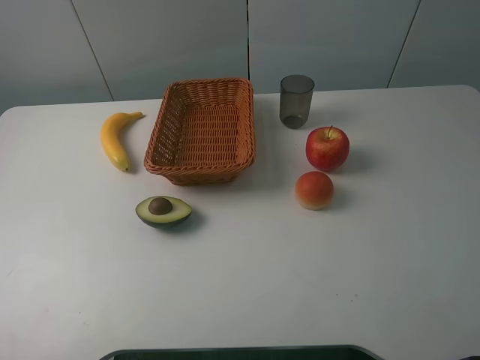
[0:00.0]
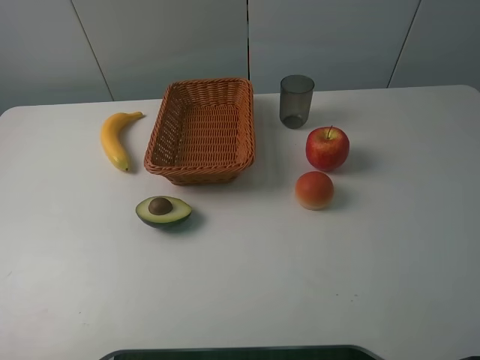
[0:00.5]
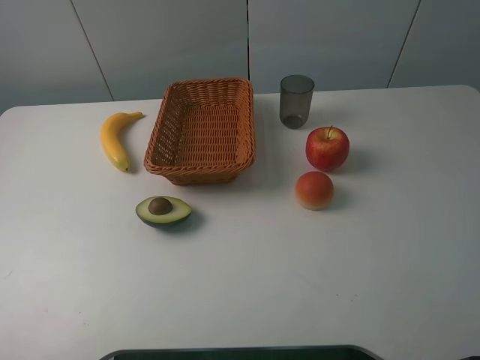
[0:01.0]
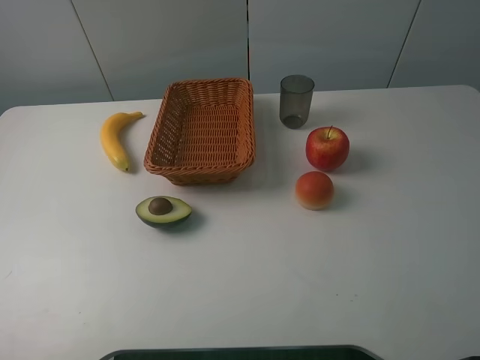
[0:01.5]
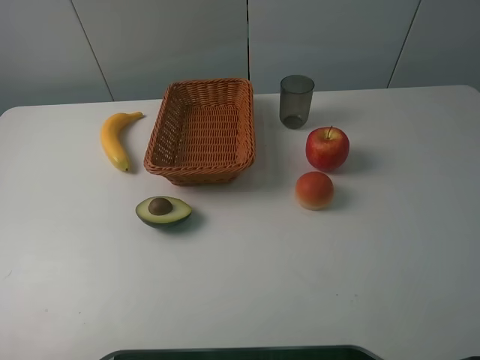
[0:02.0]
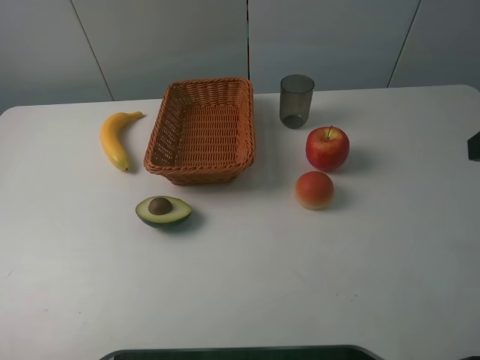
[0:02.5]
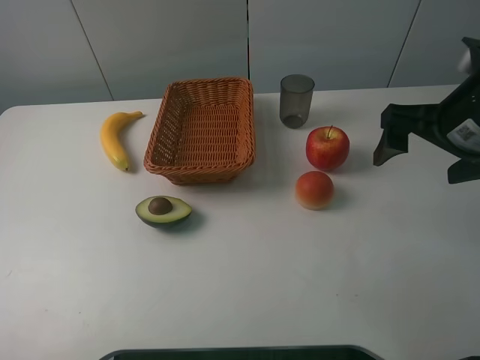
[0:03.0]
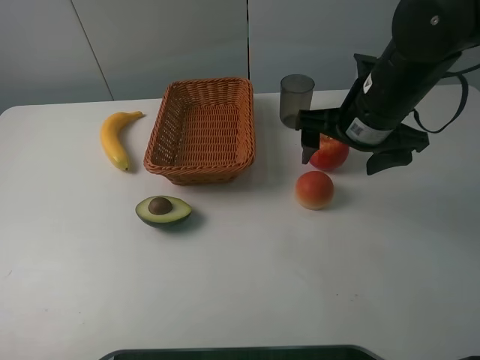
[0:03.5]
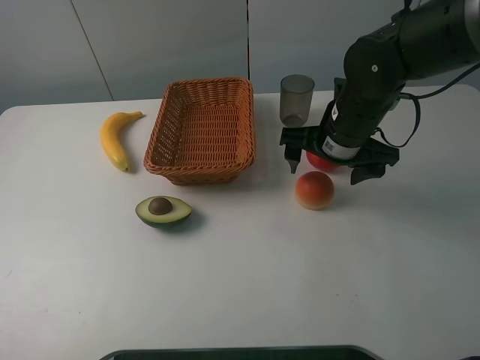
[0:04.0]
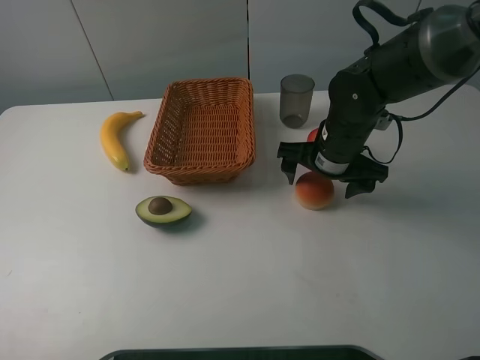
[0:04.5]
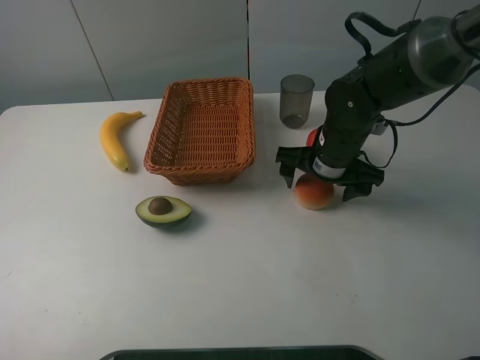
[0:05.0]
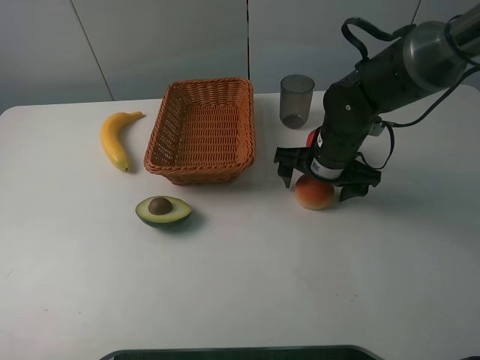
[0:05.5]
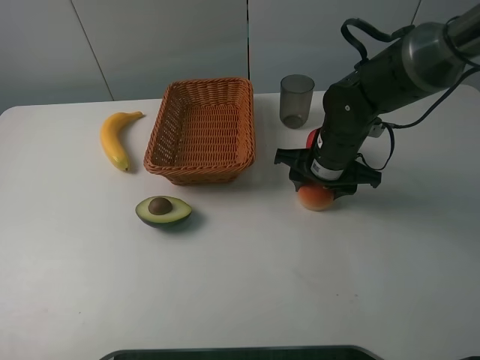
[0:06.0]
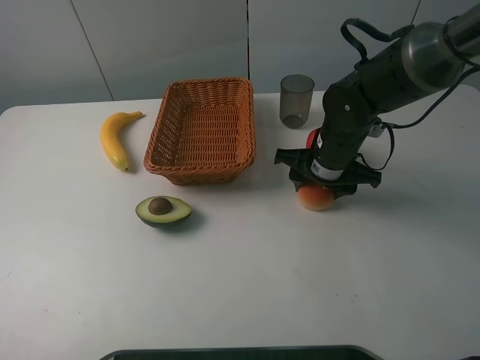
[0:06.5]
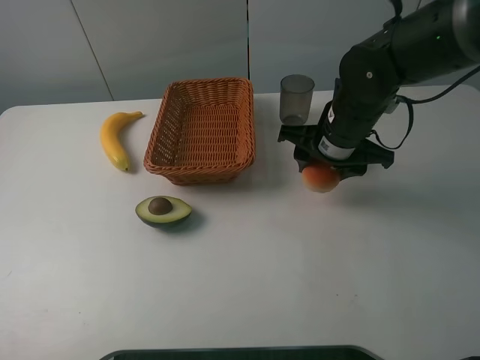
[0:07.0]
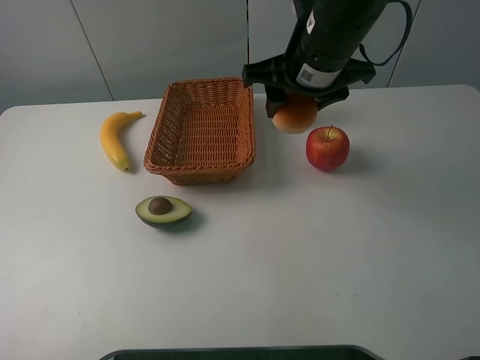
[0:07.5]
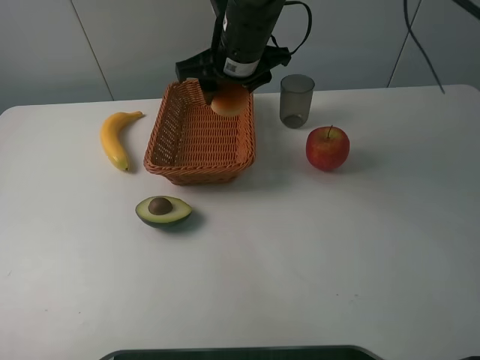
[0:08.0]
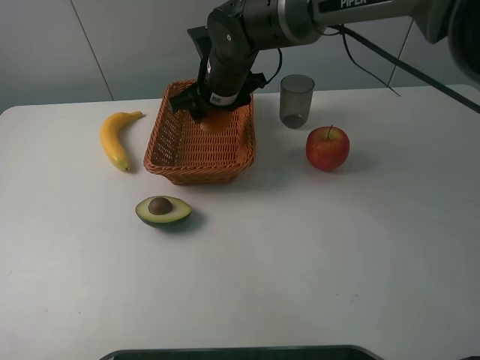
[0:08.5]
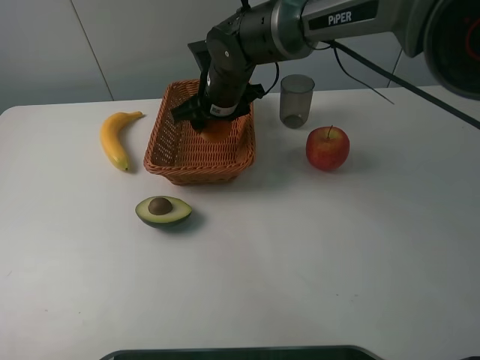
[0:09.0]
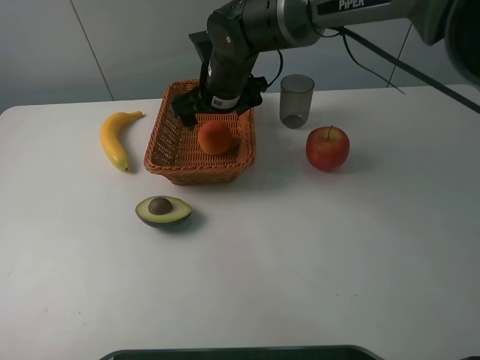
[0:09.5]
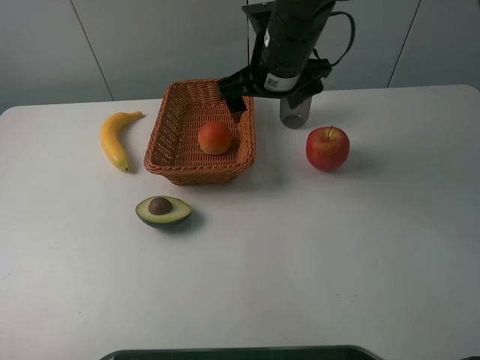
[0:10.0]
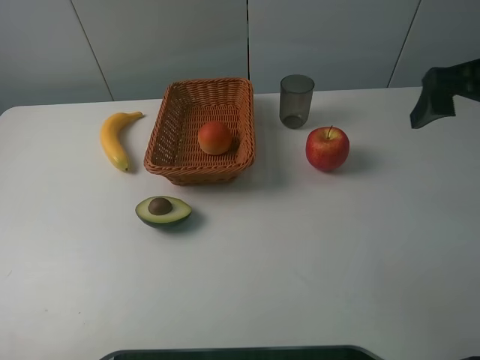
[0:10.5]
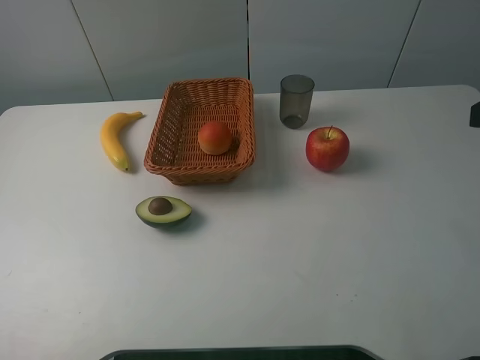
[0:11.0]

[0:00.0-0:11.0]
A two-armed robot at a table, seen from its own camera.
0:02.0 to 0:03.5: The right gripper moves forward, downward and to the left, approximately 35 cm.
0:03.5 to 0:05.5: The right gripper goes roughly 10 cm downward.
0:05.5 to 0:07.5: The right gripper travels upward by about 15 cm, and closes.
0:07.5 to 0:09.0: The right gripper heads downward, to the left and forward, covering approximately 15 cm.
0:09.0 to 0:11.0: The right gripper is displaced to the right, backward and upward by roughly 40 cm, and opens its fingers.

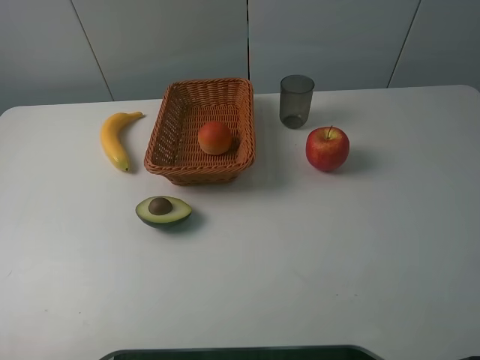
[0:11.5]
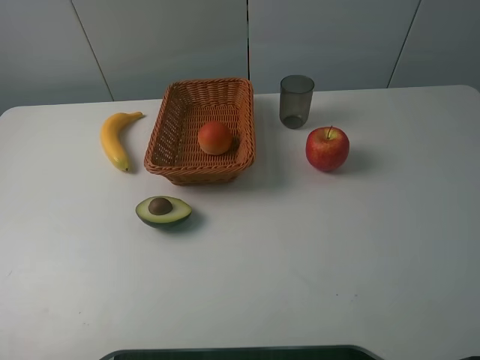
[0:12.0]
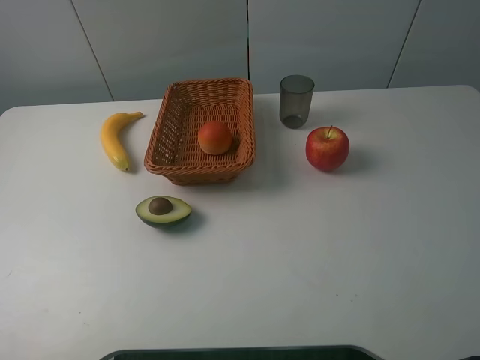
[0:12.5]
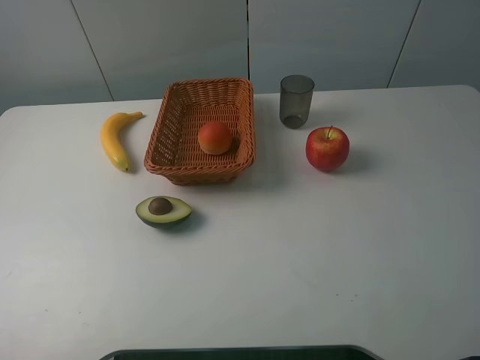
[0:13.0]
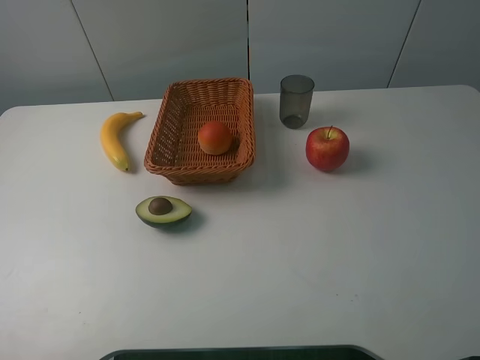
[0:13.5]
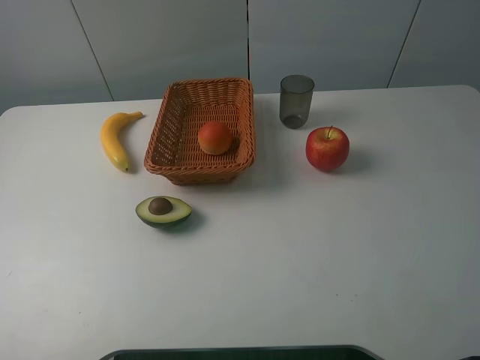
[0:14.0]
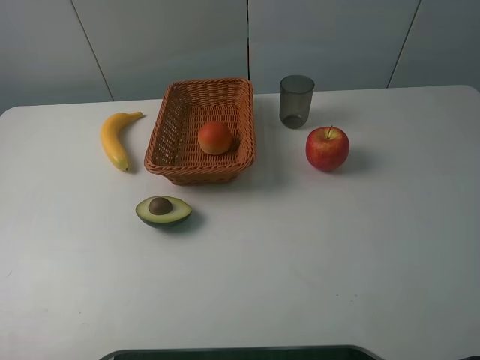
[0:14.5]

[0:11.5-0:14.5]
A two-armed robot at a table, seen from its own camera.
0:13.0 to 0:14.5: The two grippers keep their place.

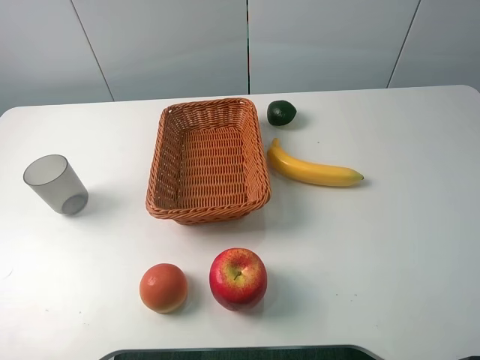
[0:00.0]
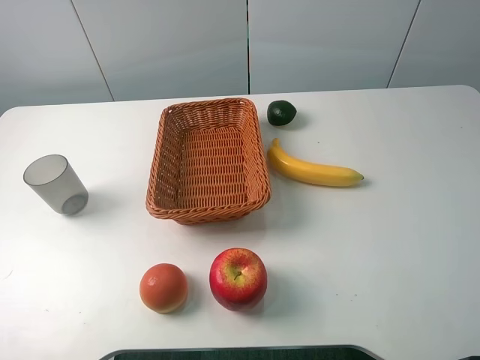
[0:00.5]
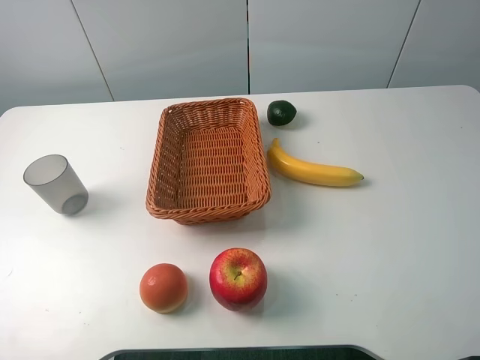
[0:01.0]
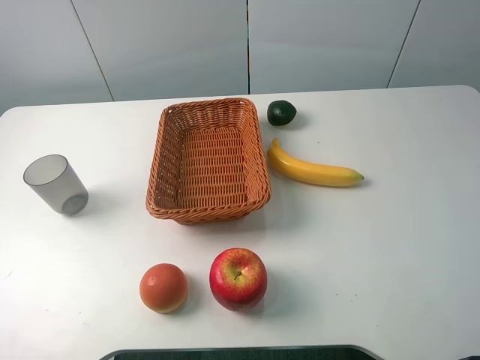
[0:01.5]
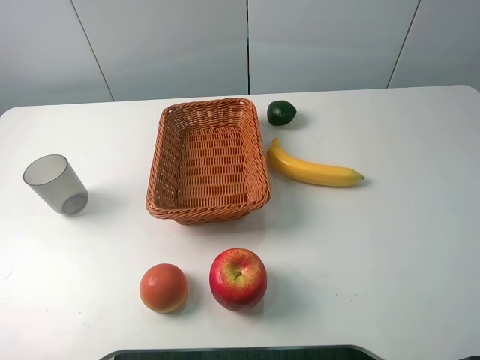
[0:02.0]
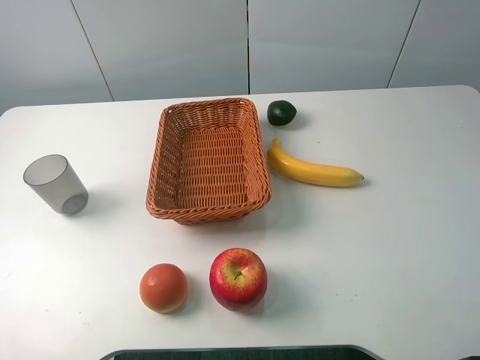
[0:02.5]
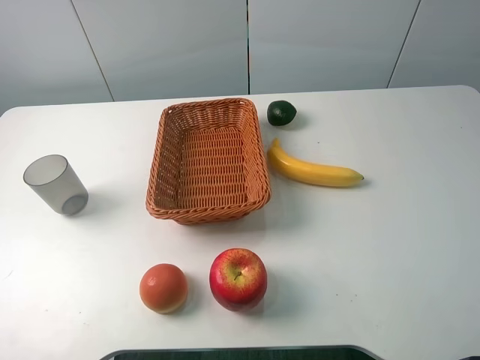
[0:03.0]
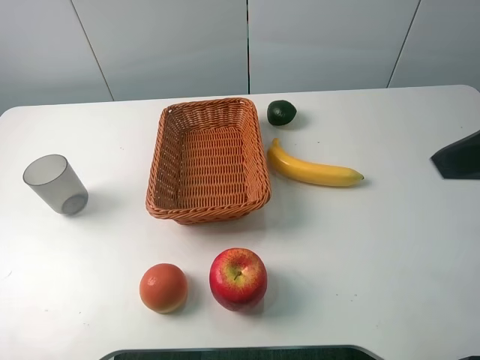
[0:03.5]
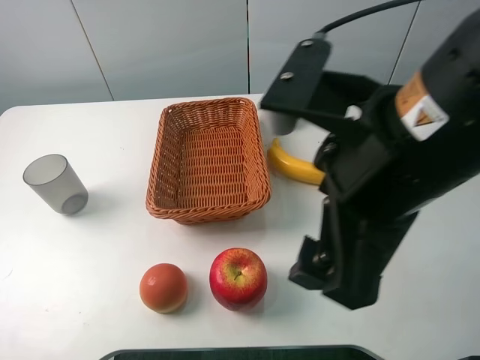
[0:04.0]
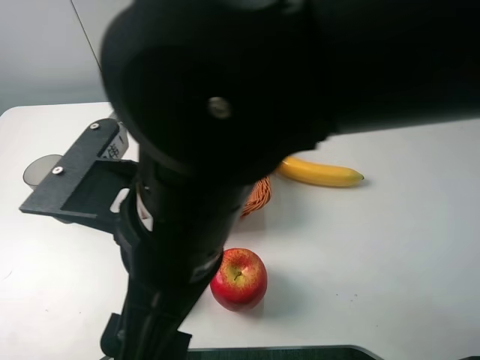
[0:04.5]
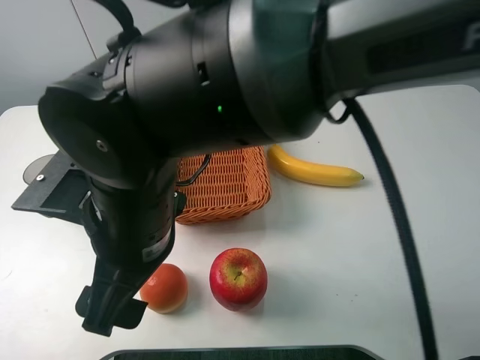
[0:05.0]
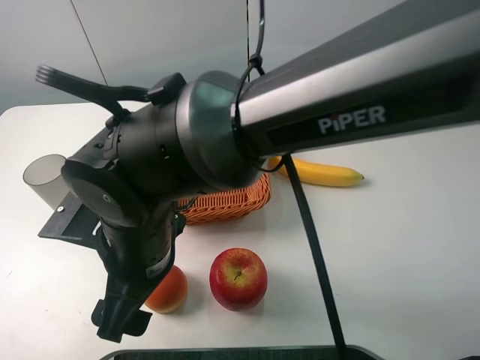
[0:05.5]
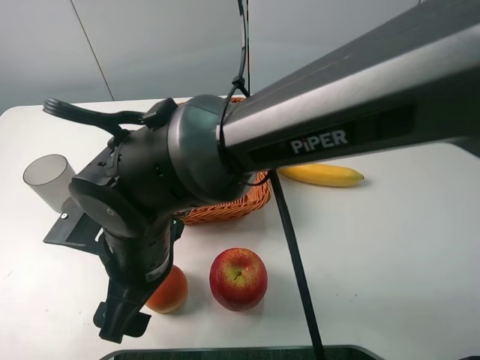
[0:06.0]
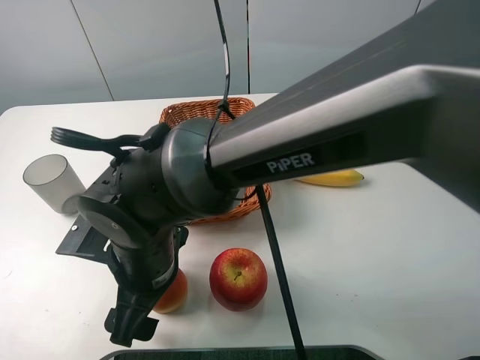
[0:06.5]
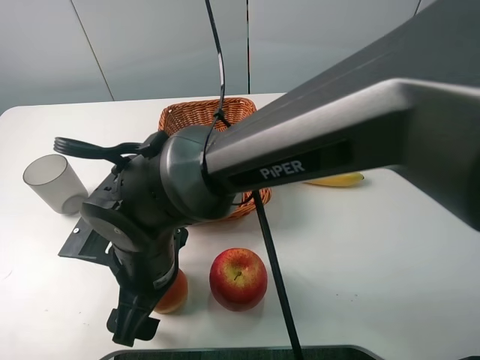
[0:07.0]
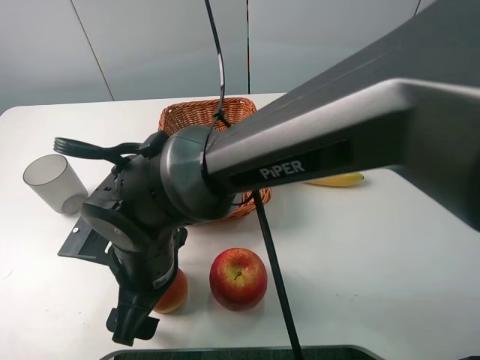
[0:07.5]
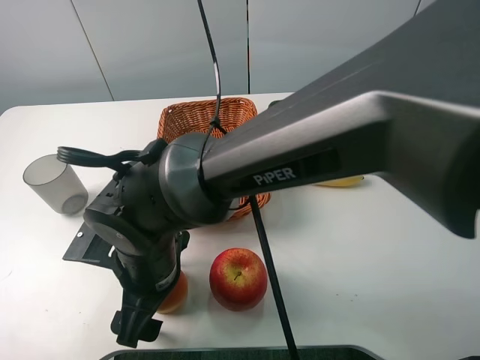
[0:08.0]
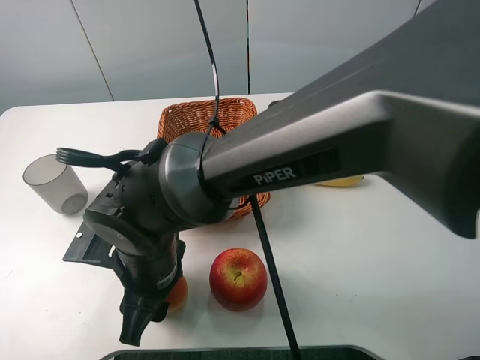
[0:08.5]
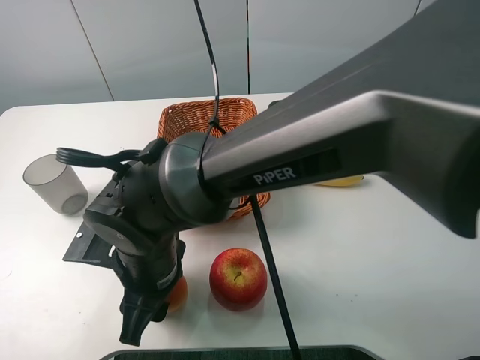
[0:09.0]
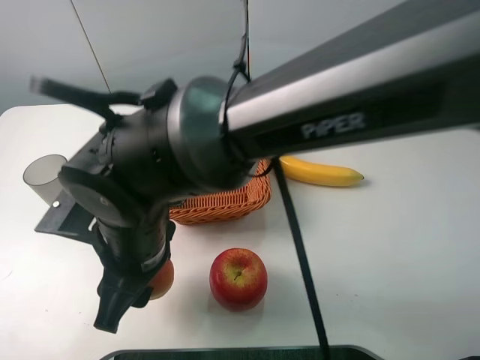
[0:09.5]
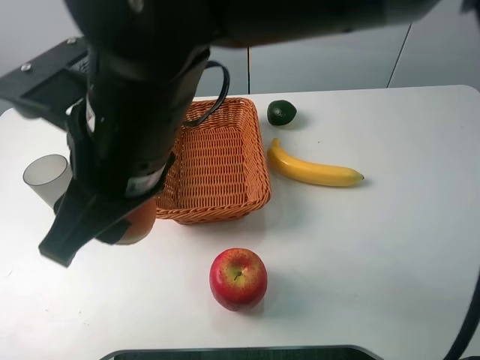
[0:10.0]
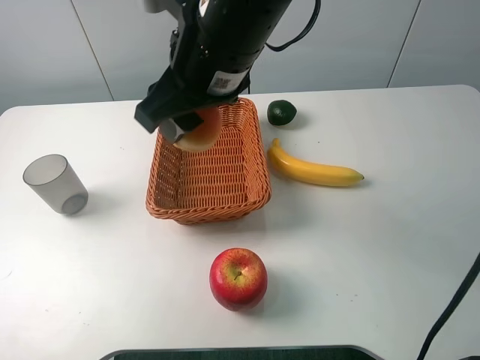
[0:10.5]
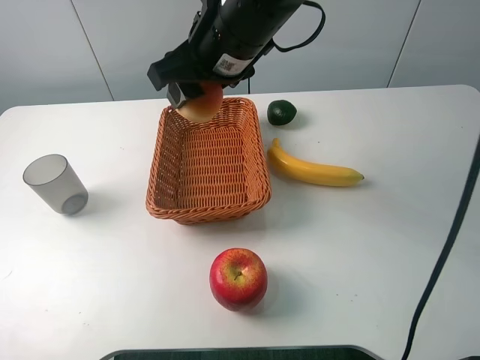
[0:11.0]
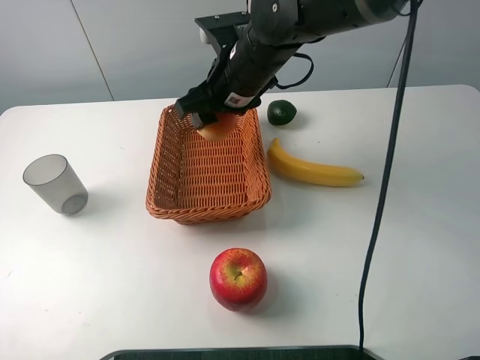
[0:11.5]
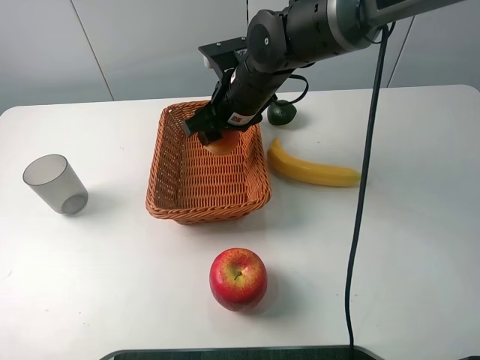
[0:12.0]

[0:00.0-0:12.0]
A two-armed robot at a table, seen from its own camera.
0:02.0 to 0:04.0: The right gripper travels to the left and forward by about 25 cm.
0:04.0 to 0:06.0: The right gripper travels to the left and downward by some 25 cm.
0:08.0 to 0:10.0: The right gripper is displaced upward by some 15 cm, and closes up.
0:10.0 to 0:12.0: The right gripper moves forward and downward, some 20 cm.
